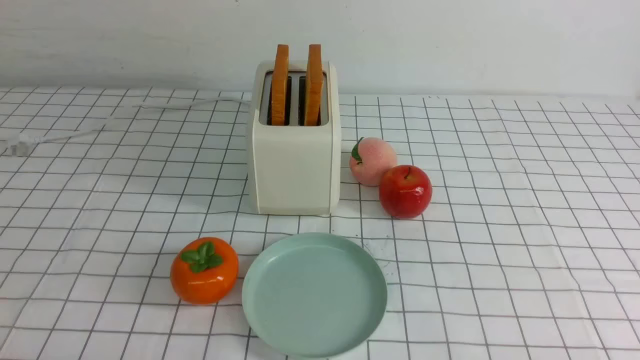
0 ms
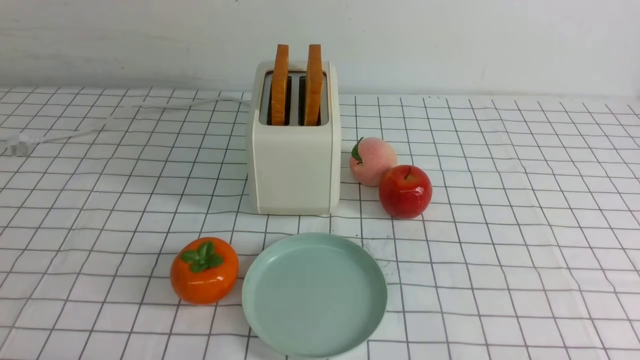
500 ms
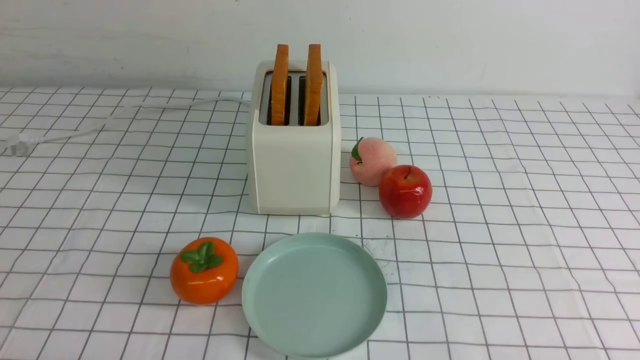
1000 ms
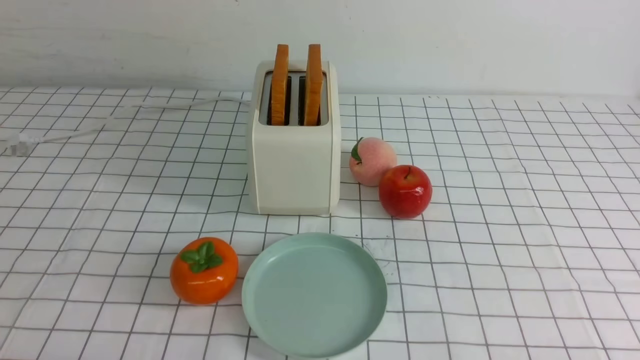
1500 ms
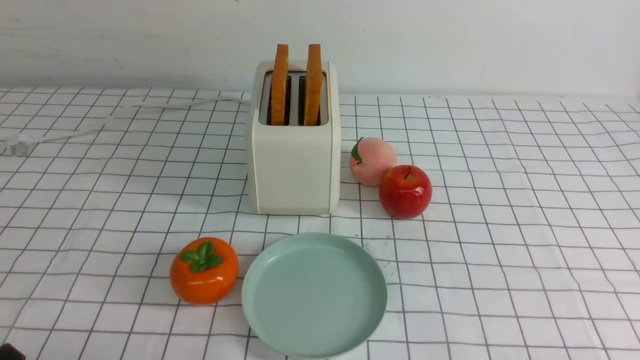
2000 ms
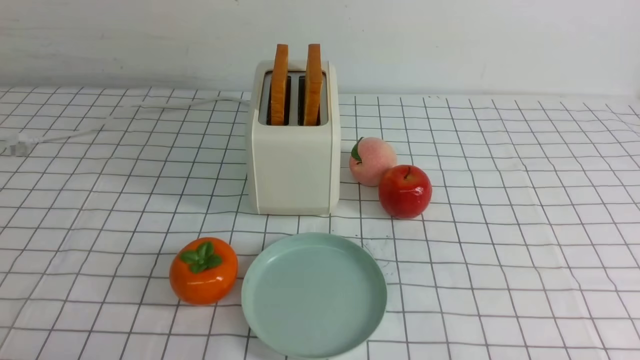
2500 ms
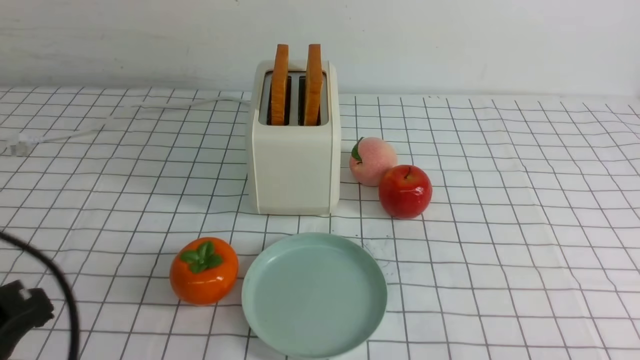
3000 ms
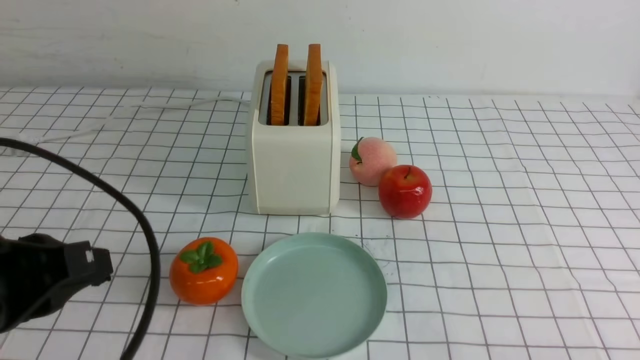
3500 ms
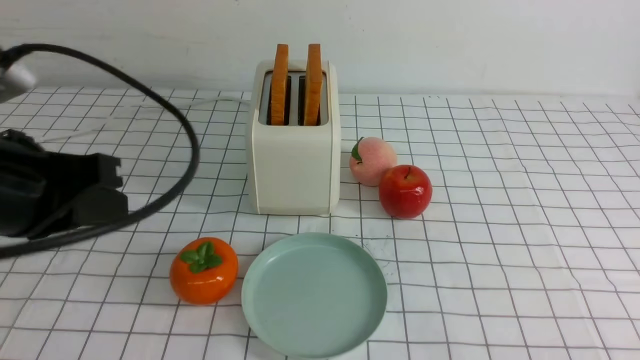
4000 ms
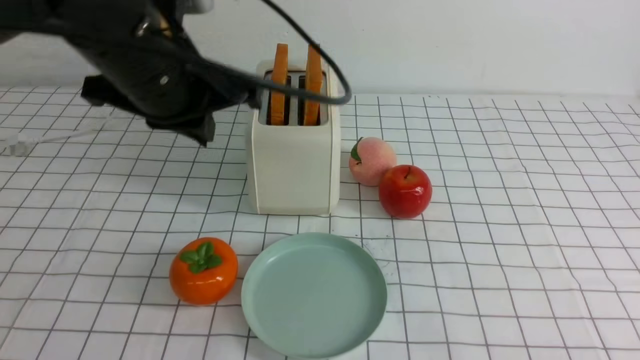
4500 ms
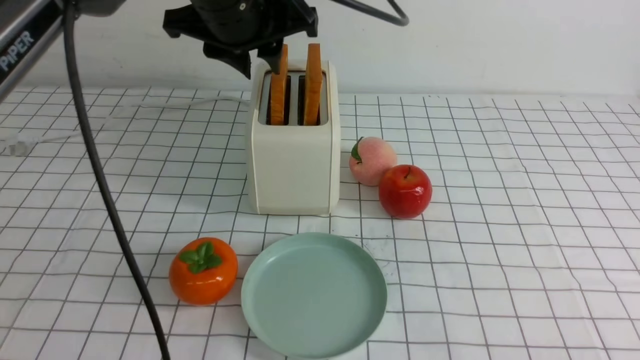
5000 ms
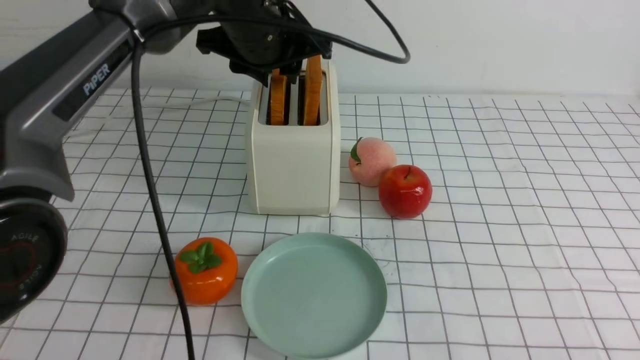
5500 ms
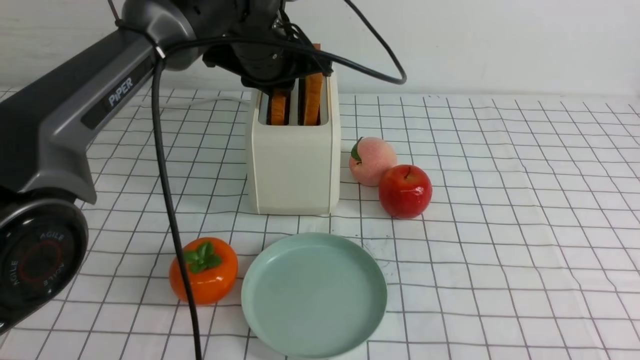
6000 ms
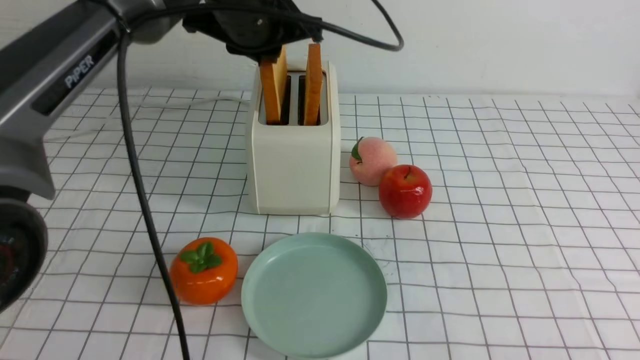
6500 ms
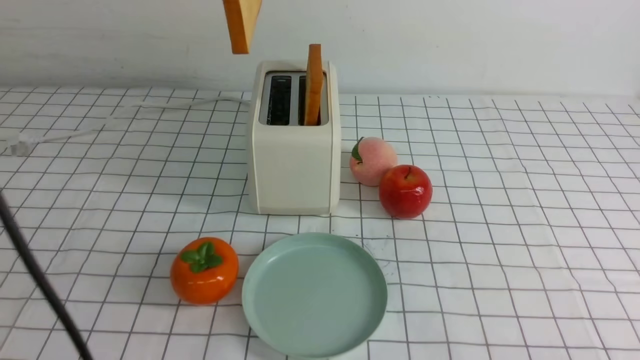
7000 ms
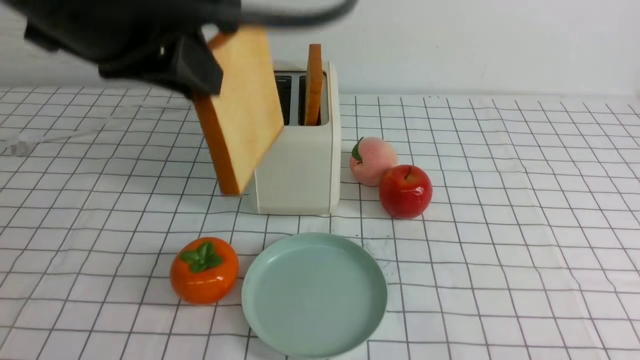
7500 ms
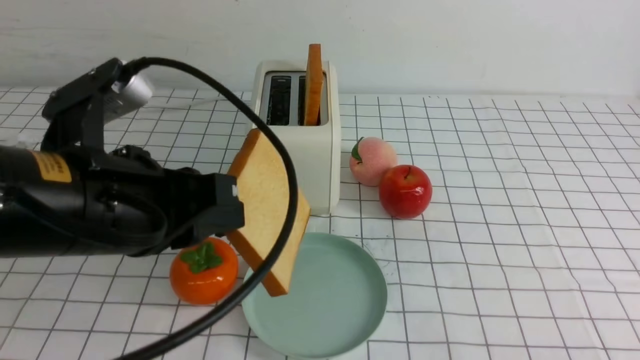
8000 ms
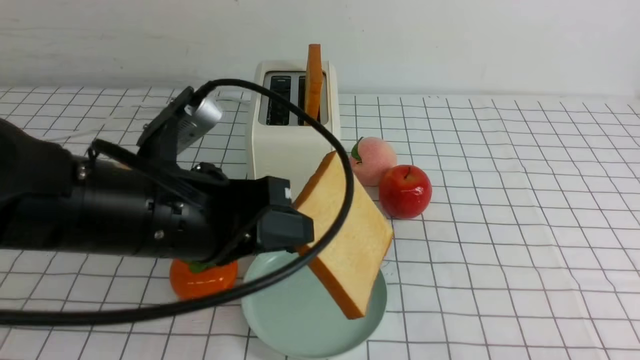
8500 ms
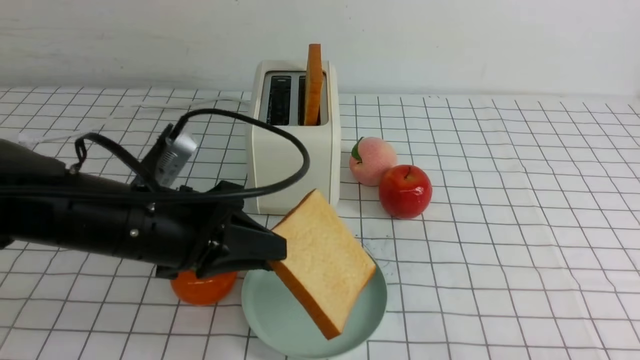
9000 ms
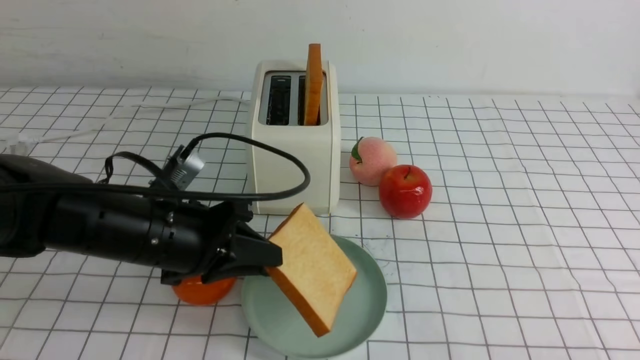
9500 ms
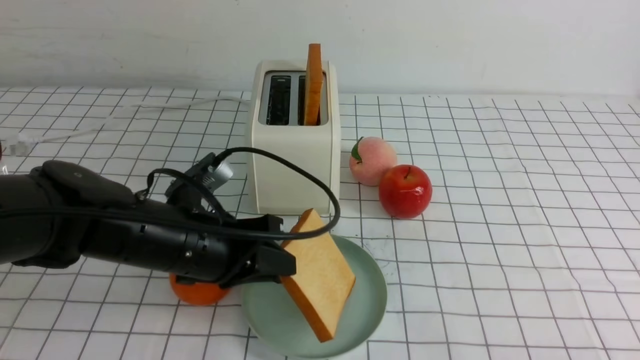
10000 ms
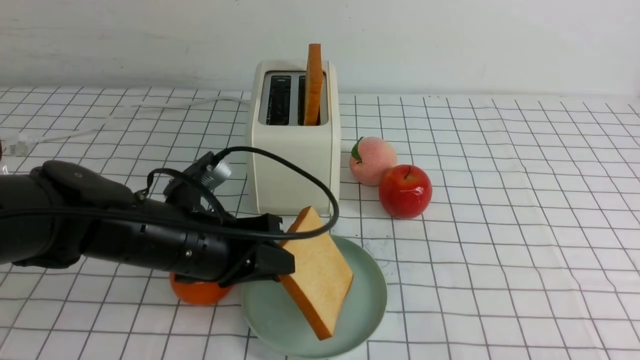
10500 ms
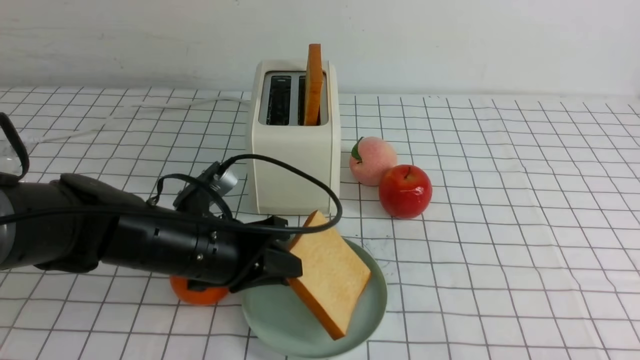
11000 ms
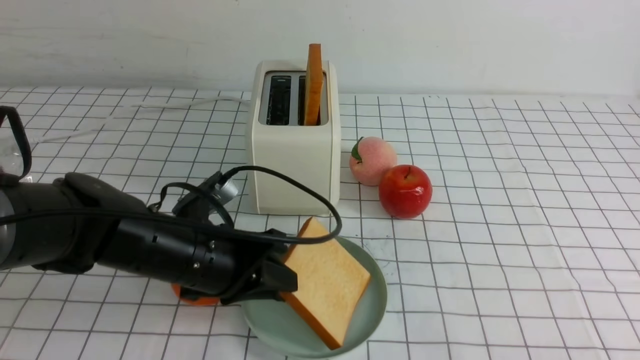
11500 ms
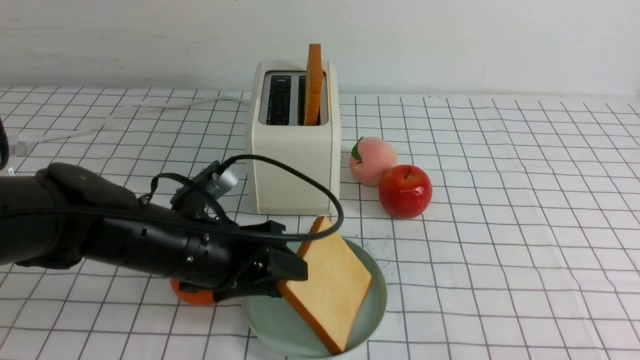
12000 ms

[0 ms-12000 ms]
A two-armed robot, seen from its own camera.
Task of the whole recording: take toasted bread from bread machine on white checkered table place on plate.
Step, 0 ms to 6500 ms: use the left arm to take out a slice of bread.
2000 ms to 4000 ms: The left gripper travels upward and forward by about 20 cm, and closes up.
4000 ms to 6000 ms: The left gripper is displaced forward and to the right by roughly 30 cm, and opens its fingers.
6000 ms to 8000 ms: The left gripper goes roughly 25 cm backward.
8000 ms to 10000 ms: The left gripper travels downward and forward by roughly 15 cm.
10000 ms to 12000 ms: The left gripper opens its fingers.

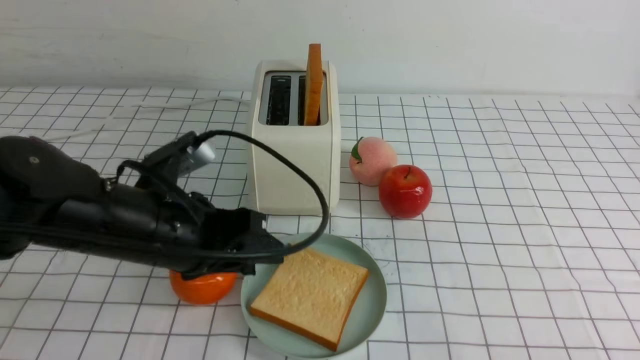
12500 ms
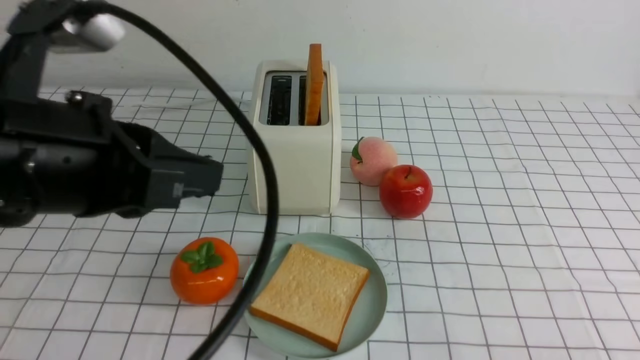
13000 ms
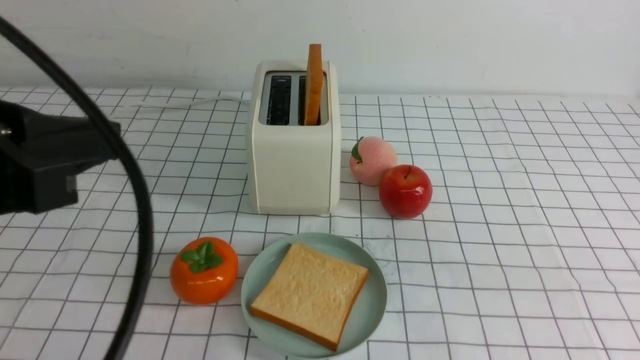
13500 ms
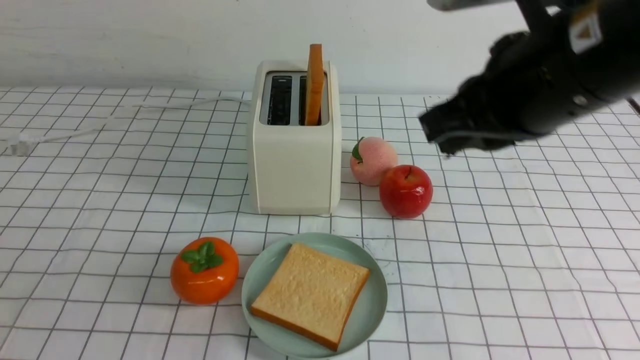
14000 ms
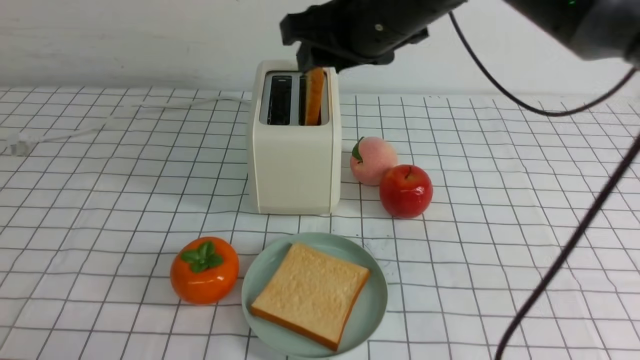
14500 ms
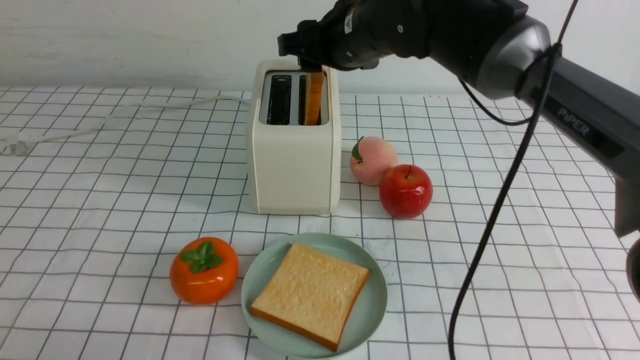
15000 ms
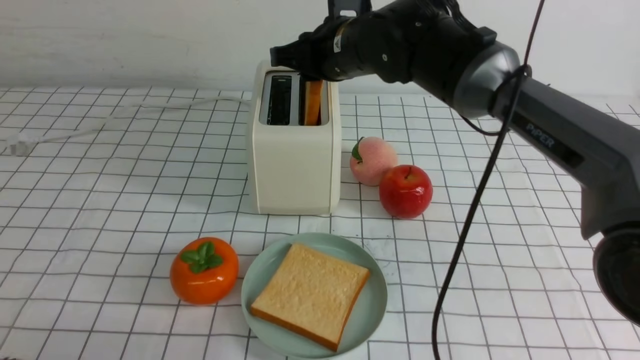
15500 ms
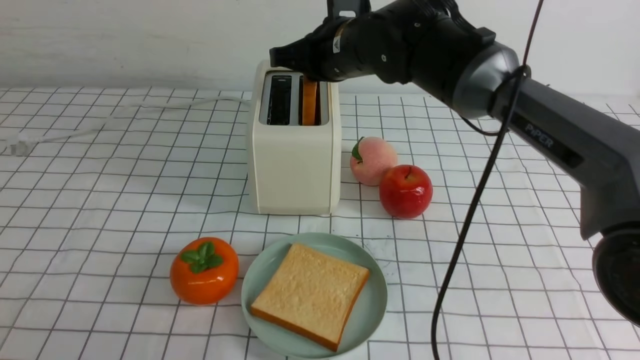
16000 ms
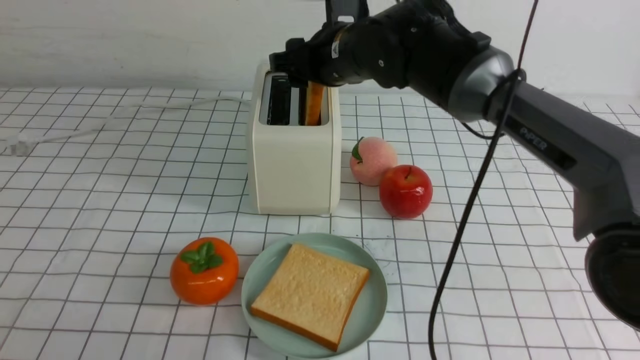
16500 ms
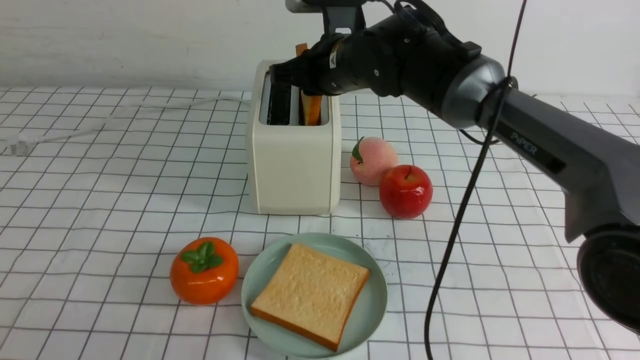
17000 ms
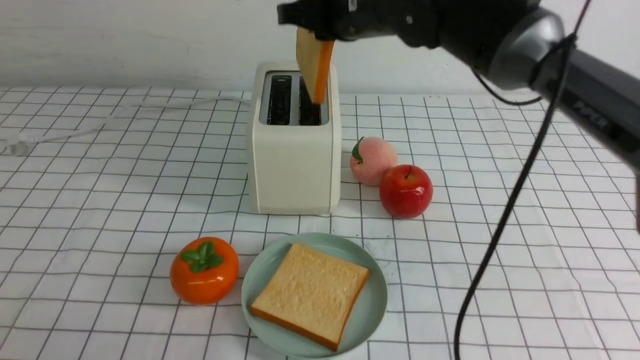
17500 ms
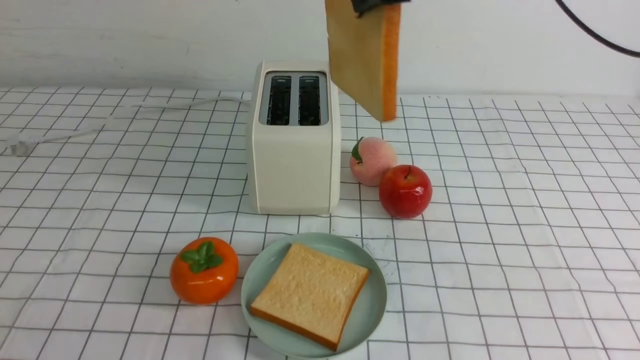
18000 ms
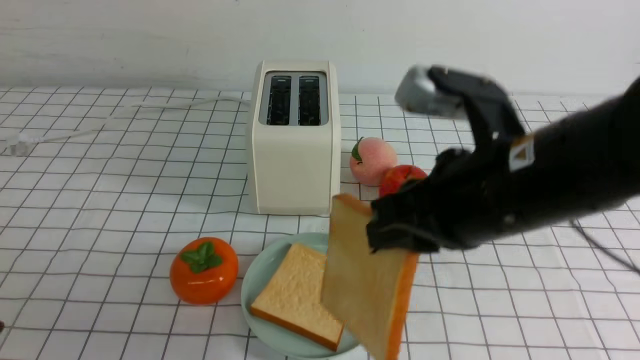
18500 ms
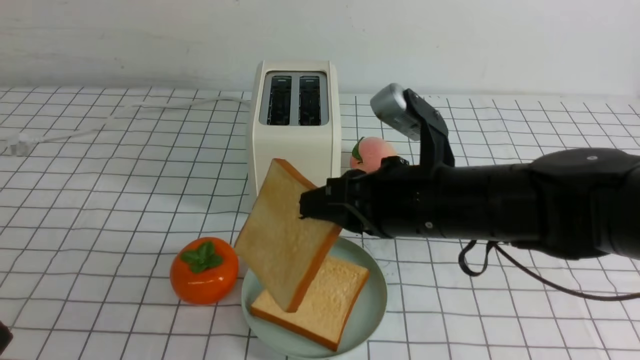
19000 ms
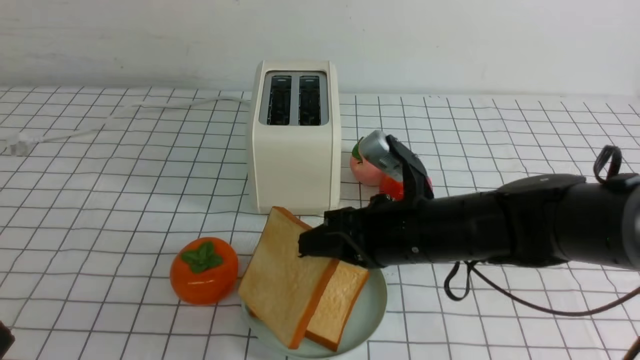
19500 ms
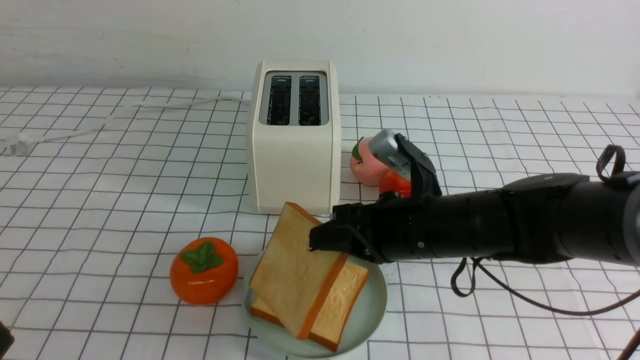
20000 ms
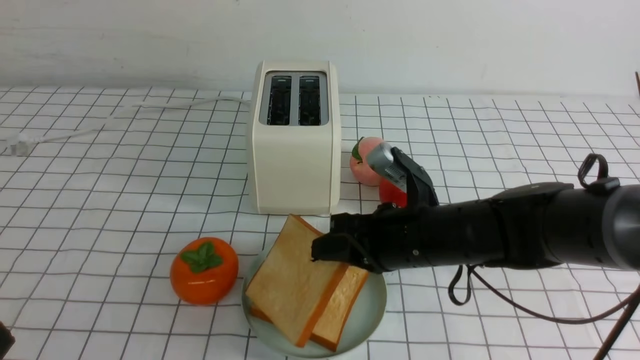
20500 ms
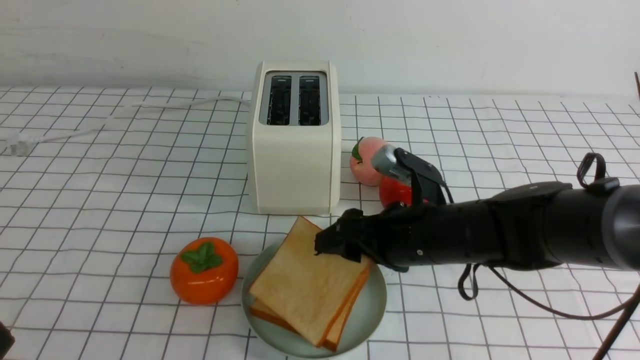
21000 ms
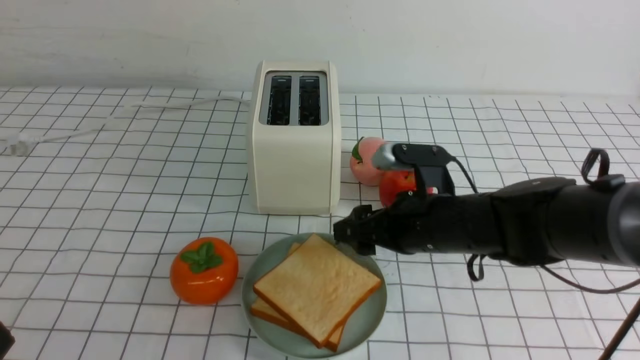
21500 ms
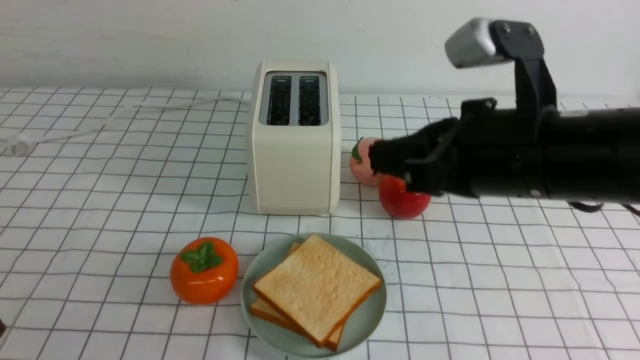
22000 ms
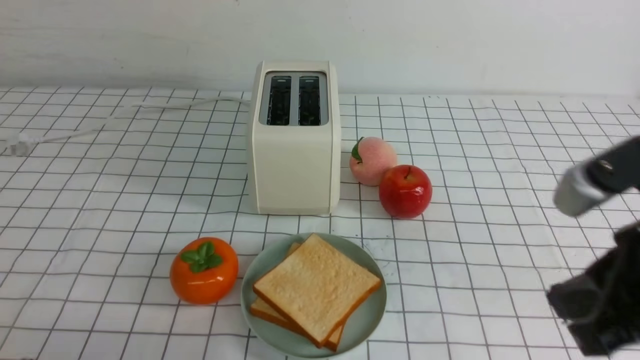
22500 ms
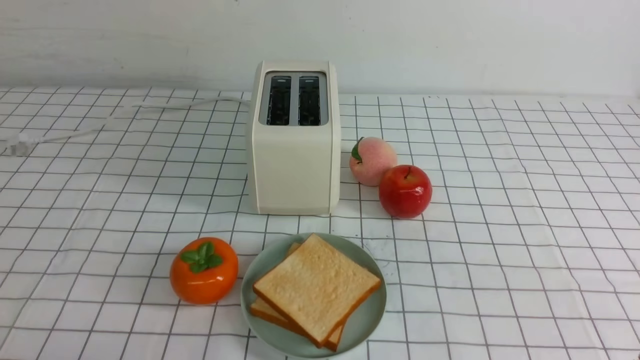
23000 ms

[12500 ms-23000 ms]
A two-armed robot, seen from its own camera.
Task of the whole recording: take toasted bread from bread machine on white checkered table place on plate.
Step, 13000 ms to 17500 ms: use the right arm to take out a slice of bread.
Step, 18000 ms to 21500 ms: use the right arm to put a slice of bread into the plate.
12500 ms to 14500 ms: The left gripper is displaced backward and to the left by approximately 25 cm, and closes up, while the right gripper is displaced forward, to the left and upward by approximately 40 cm, and closes, then opens again.
14500 ms to 16500 ms: The right gripper travels forward and downward by approximately 10 cm, and closes, then opens again.
16500 ms to 19000 ms: The right gripper heads backward, covering some 20 cm, and closes its fingers.
19000 ms to 21000 ms: The right gripper moves downward, roughly 10 cm, and opens up.
21000 ms to 23000 ms: The right gripper shifts about 30 cm backward, to the right and upward, and closes.
